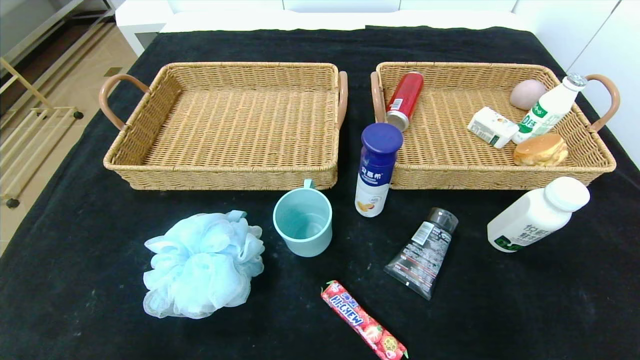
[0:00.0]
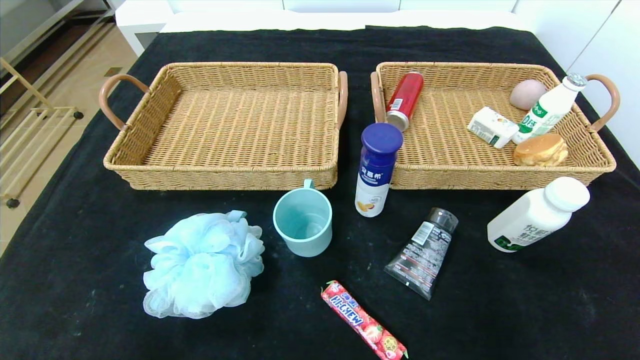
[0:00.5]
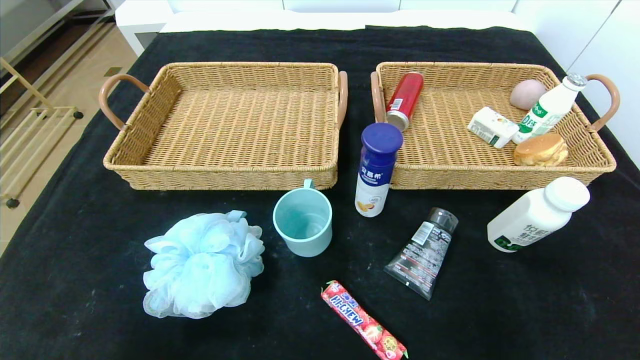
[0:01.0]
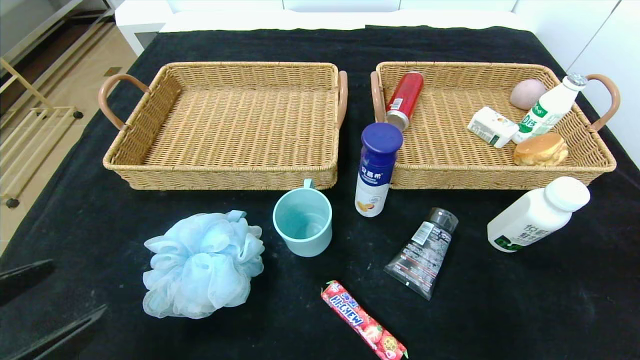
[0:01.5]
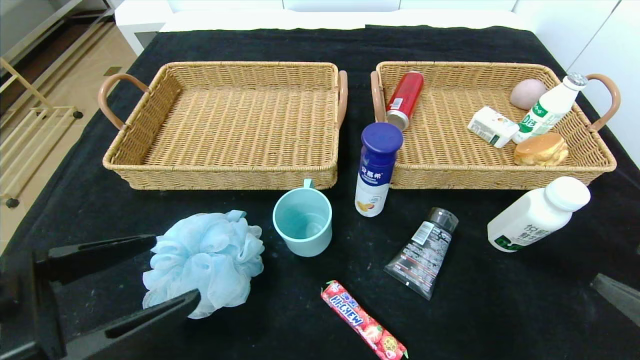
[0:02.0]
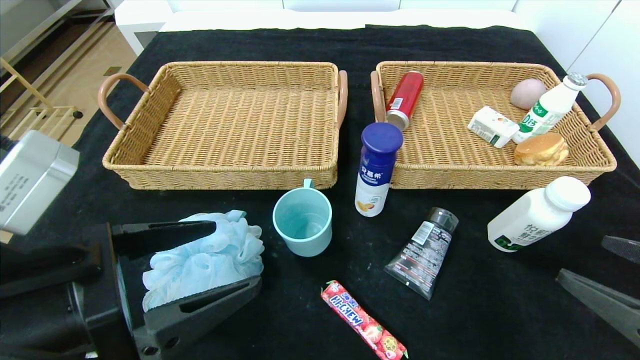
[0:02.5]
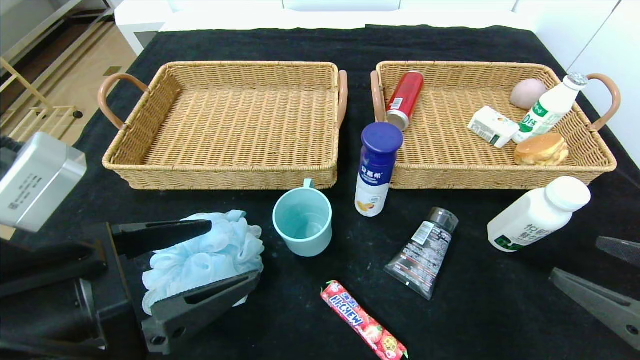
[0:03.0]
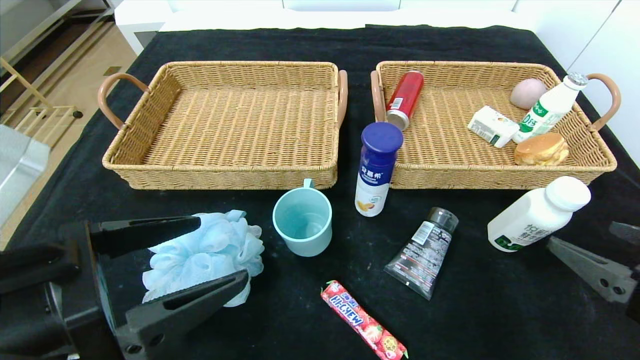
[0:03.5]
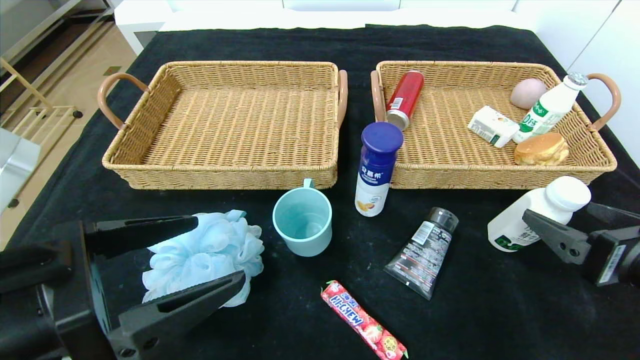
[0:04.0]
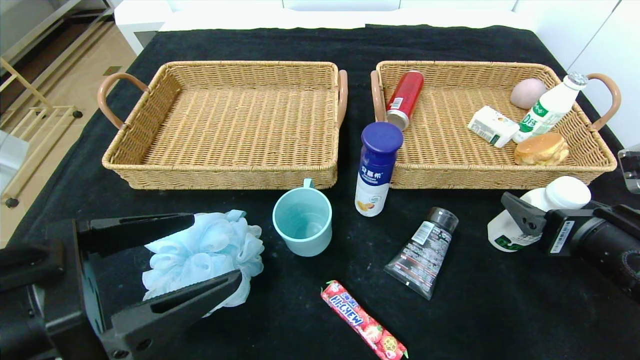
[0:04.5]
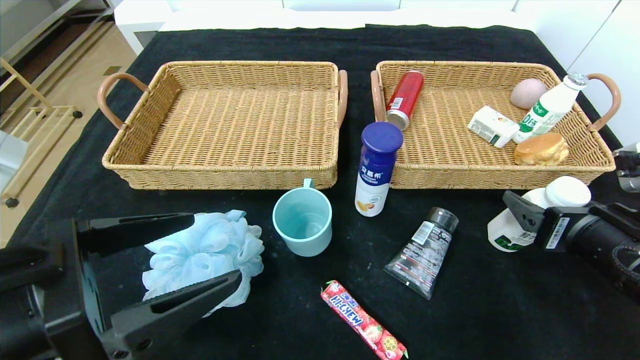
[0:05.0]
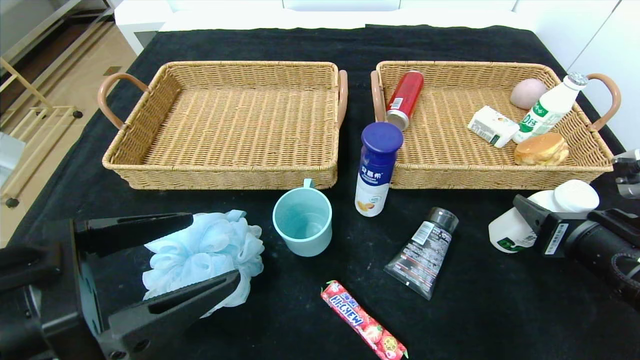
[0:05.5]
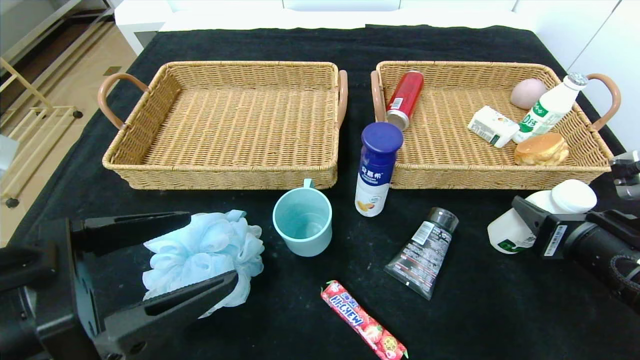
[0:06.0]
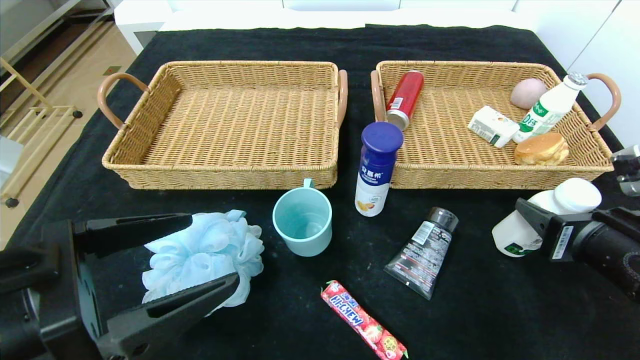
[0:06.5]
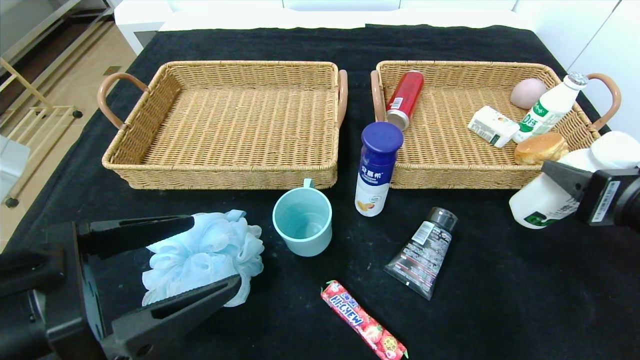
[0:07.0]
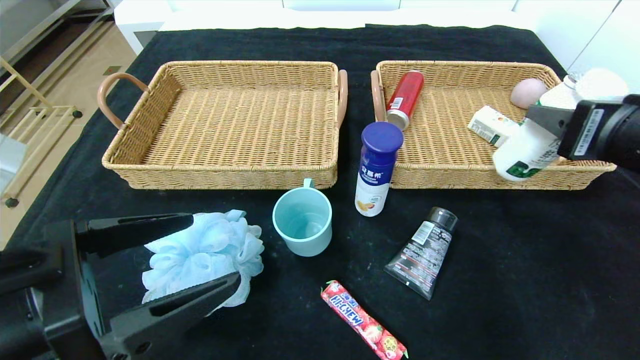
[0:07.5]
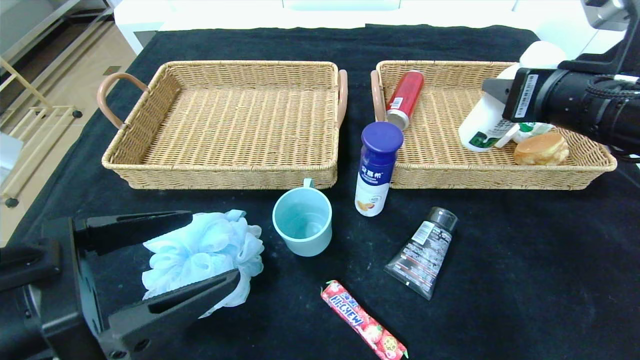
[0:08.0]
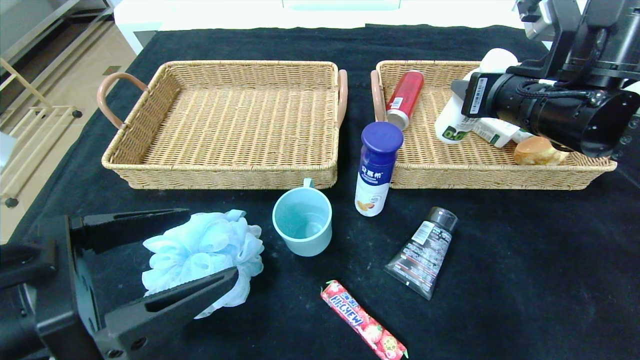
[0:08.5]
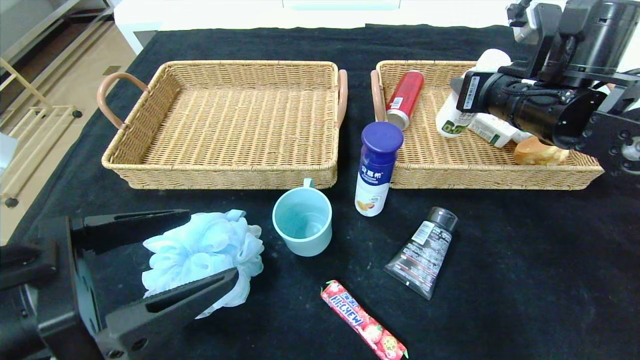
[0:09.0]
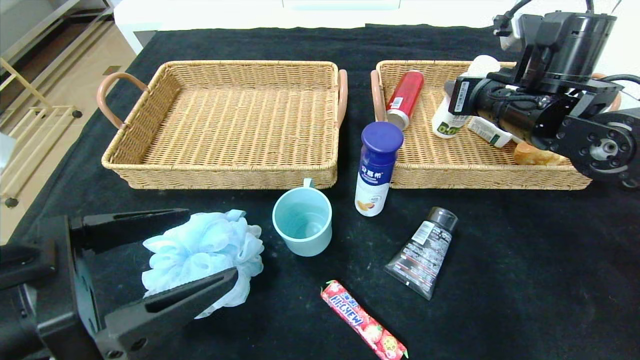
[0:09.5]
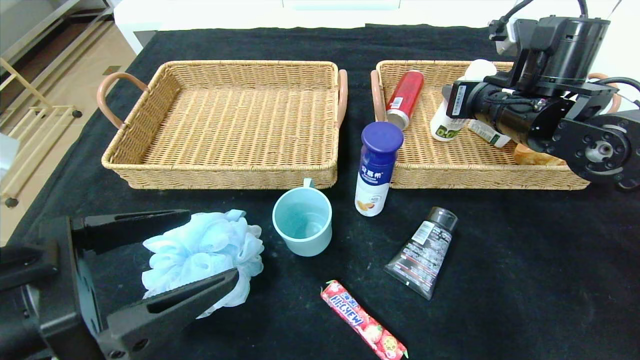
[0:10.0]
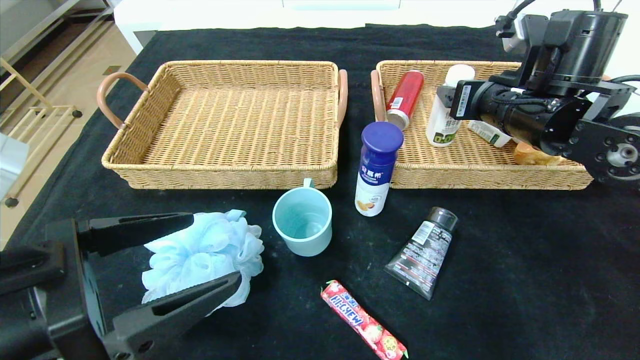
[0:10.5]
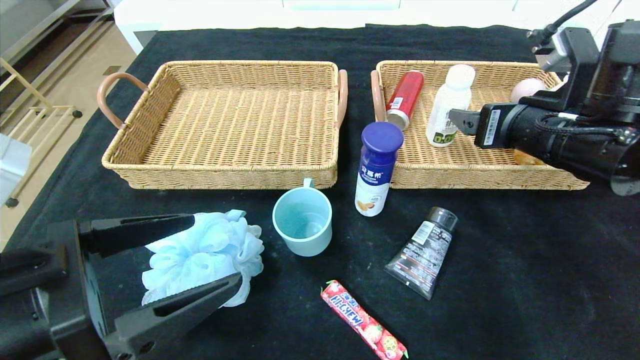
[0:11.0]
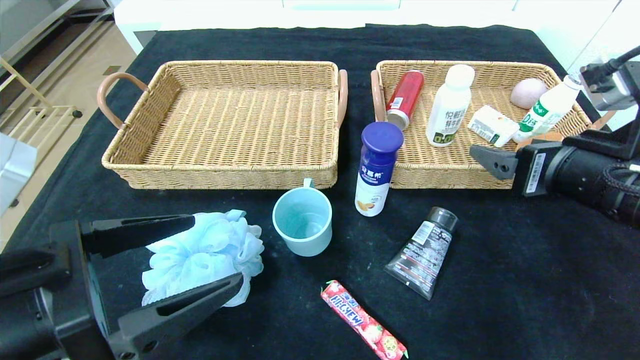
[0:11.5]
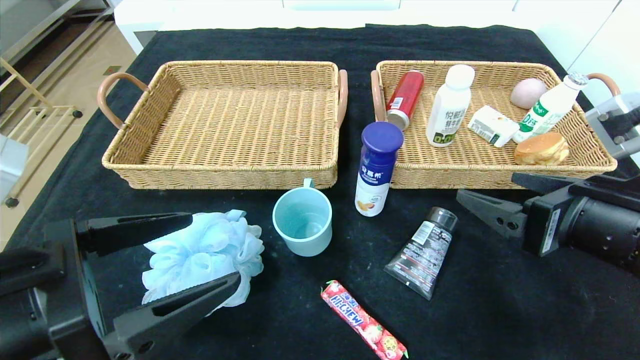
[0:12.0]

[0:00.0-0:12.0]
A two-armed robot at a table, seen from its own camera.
0:00.0 to 0:02.0: Both grippers move upward and forward, about 20 cm.
0:02.0 to 0:04.0: The right gripper moves forward, approximately 10 cm.
0:04.0 to 0:06.0: The right gripper closes its fingers.
0:06.0 to 0:08.0: The right gripper travels upward and forward by about 15 cm.
0:08.0 to 0:10.0: The right gripper shifts approximately 10 cm forward.
0:10.0 to 0:12.0: The right gripper travels backward by roughly 20 cm, and opens its fingers.

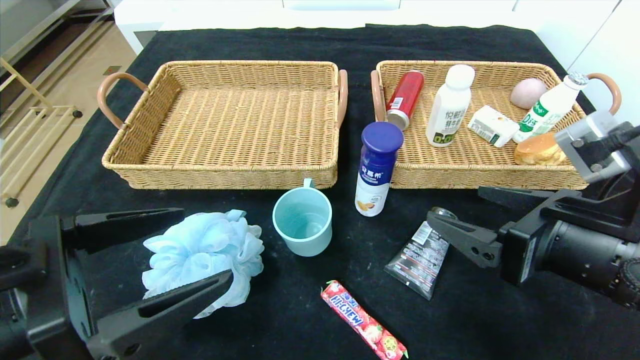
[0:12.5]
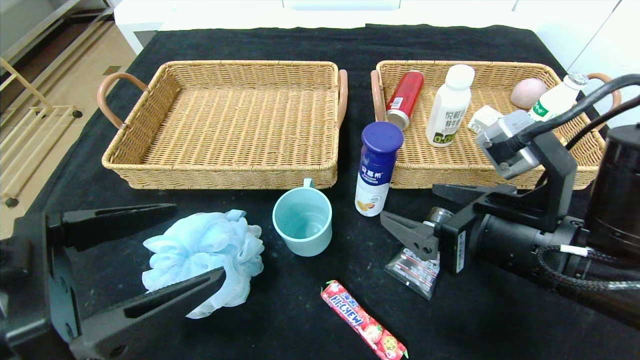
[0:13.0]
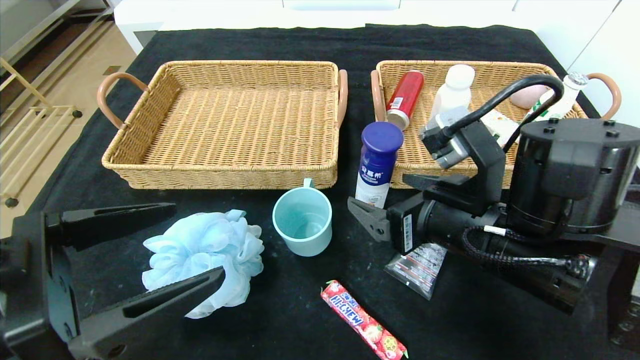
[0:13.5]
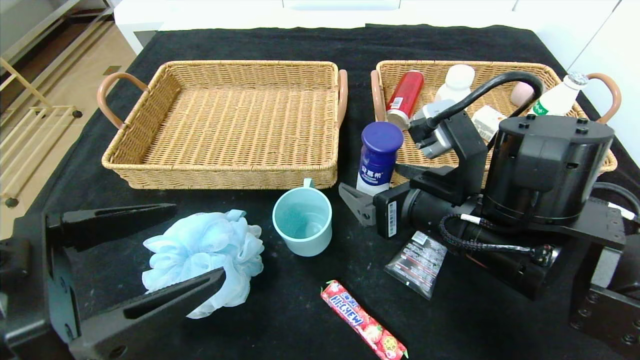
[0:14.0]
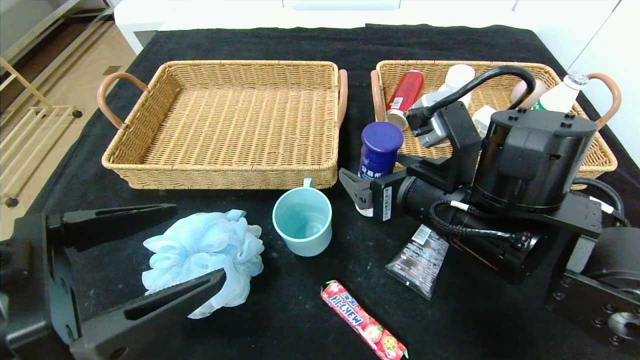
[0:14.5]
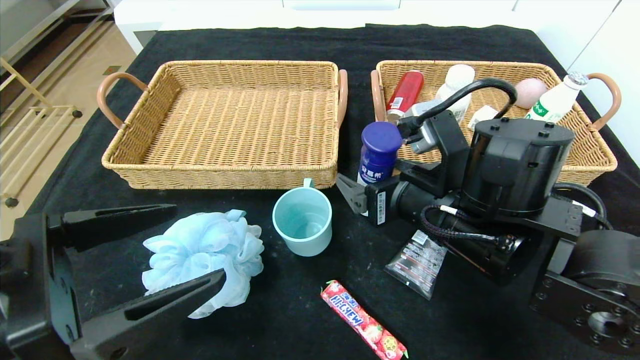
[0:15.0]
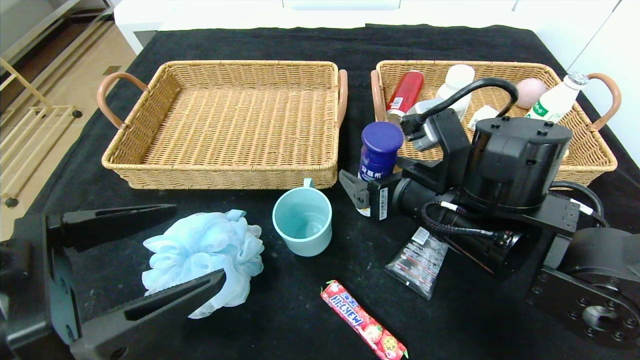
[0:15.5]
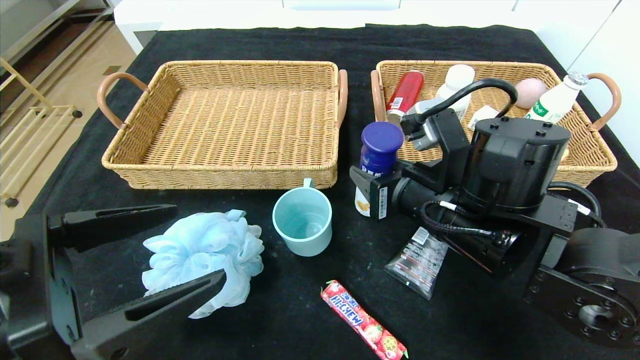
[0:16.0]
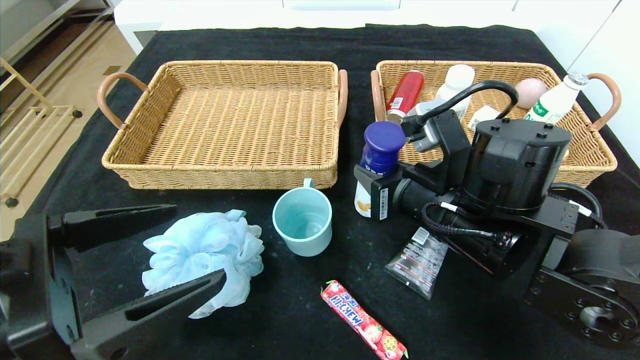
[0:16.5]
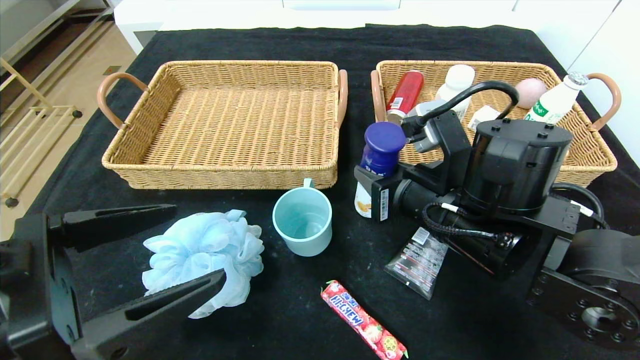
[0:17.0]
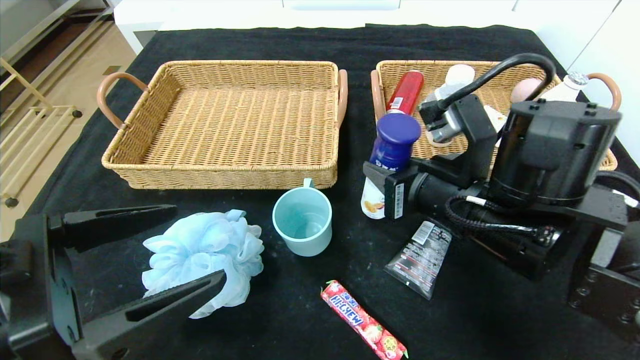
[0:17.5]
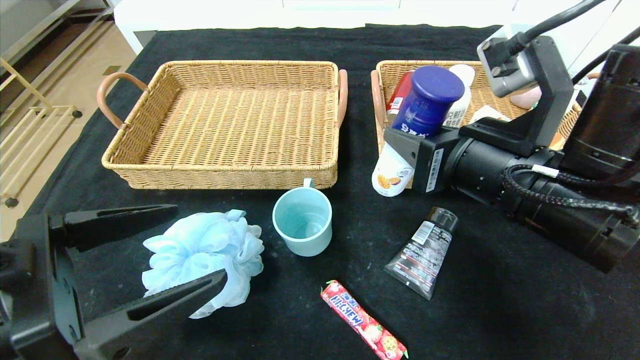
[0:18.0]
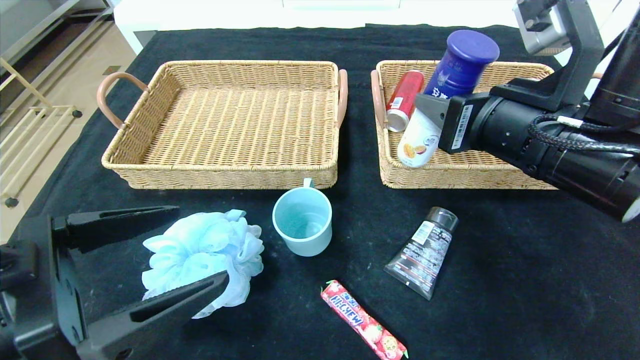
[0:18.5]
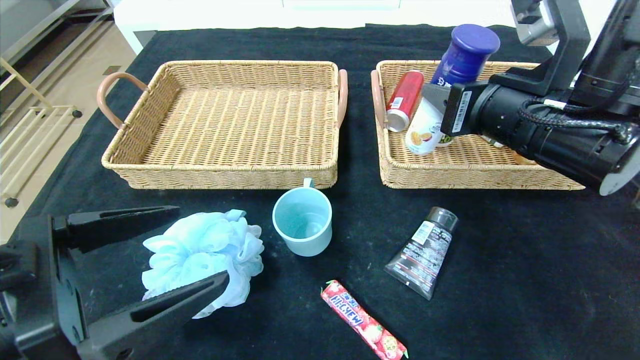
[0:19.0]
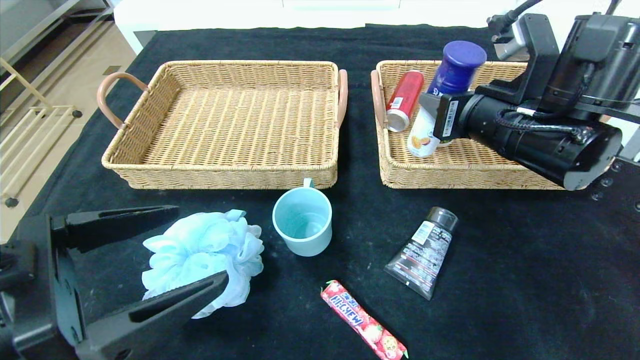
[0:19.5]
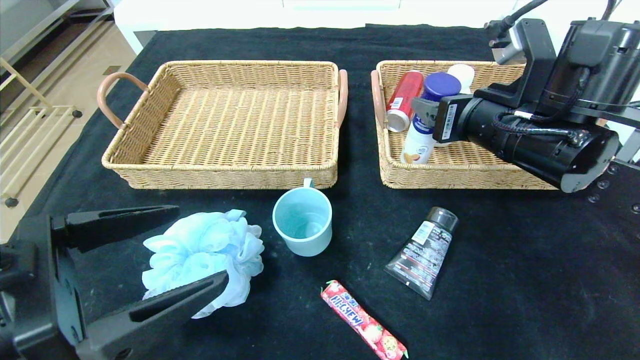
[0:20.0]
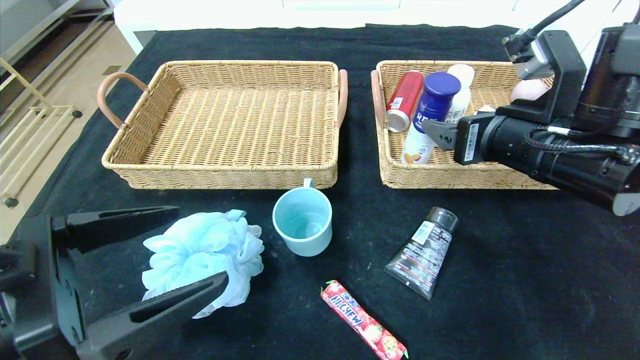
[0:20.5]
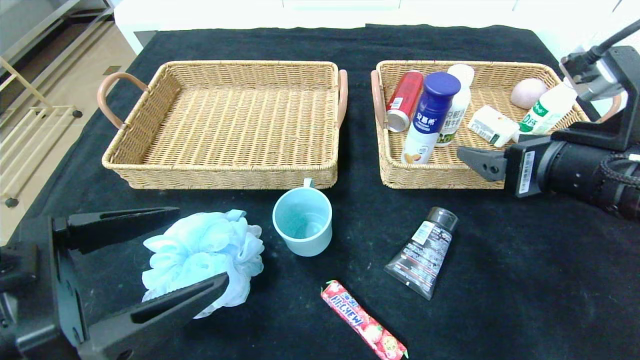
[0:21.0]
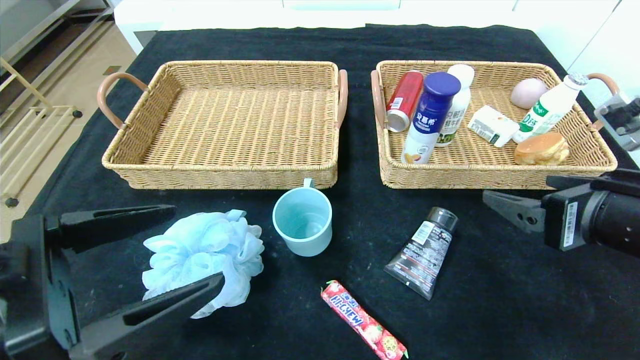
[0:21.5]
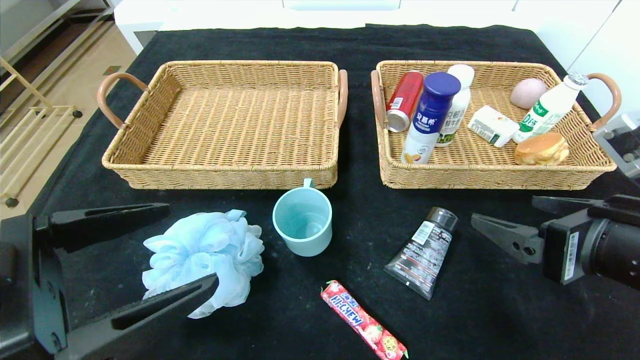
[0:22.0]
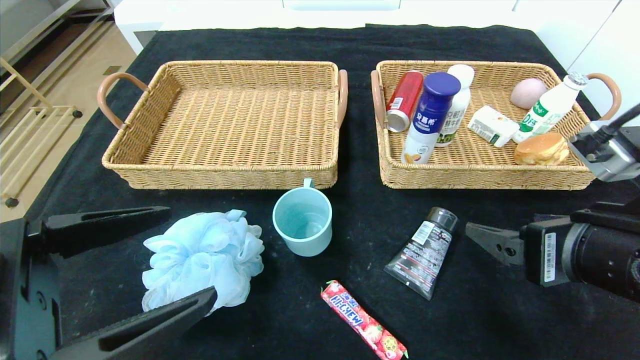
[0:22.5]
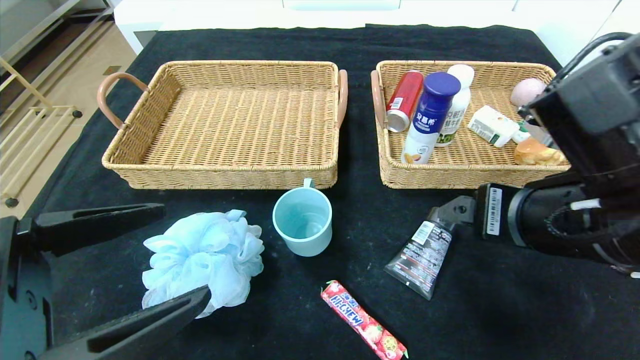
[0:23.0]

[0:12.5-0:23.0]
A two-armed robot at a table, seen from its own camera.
Step, 0:12.5 to 0:21.5: Pick up the yogurt and put it in the right basket.
0:12.5 to 0:14.5: The right gripper shifts about 10 cm to the left and forward.
0:14.5 to 0:16.5: The right gripper closes its fingers.
0:16.5 to 0:19.0: The right gripper moves upward and to the right, approximately 10 cm.
0:19.0 to 0:21.0: The right gripper is displaced backward by roughly 5 cm, and opens its fingers.
0:21.0 to 0:23.0: The right gripper heads to the left, covering approximately 5 cm.
